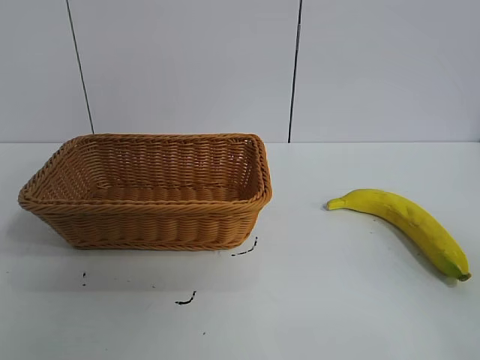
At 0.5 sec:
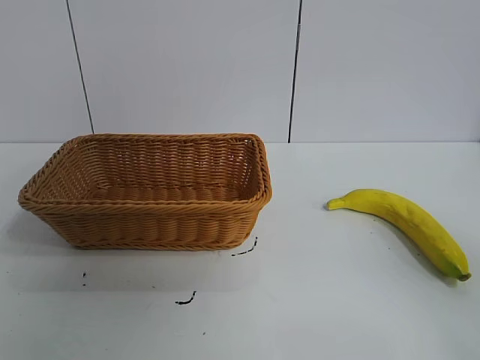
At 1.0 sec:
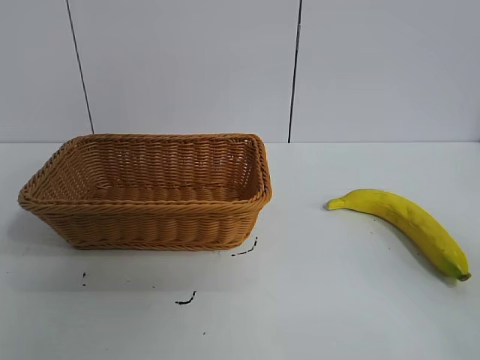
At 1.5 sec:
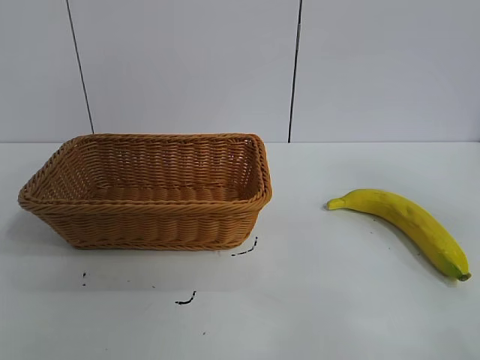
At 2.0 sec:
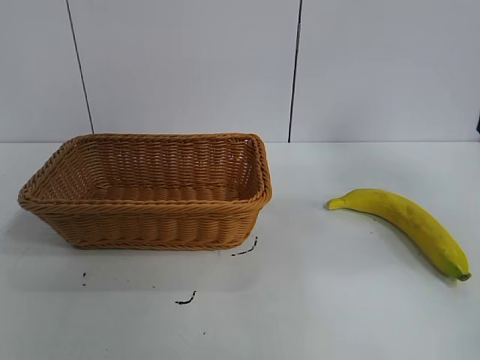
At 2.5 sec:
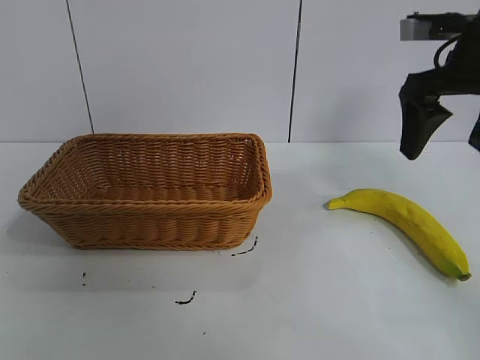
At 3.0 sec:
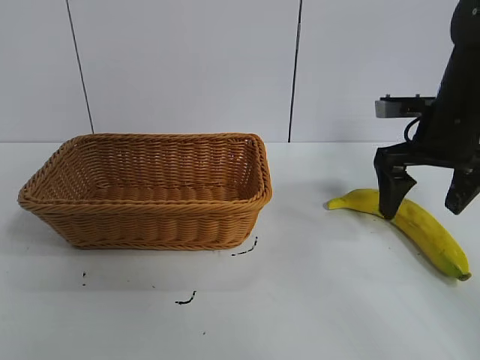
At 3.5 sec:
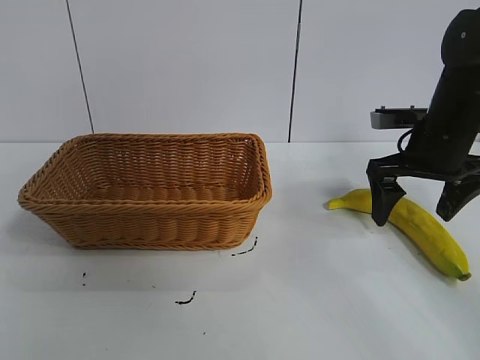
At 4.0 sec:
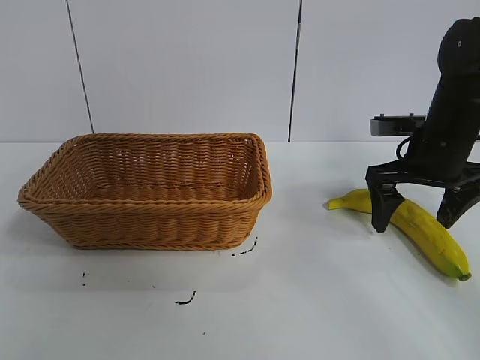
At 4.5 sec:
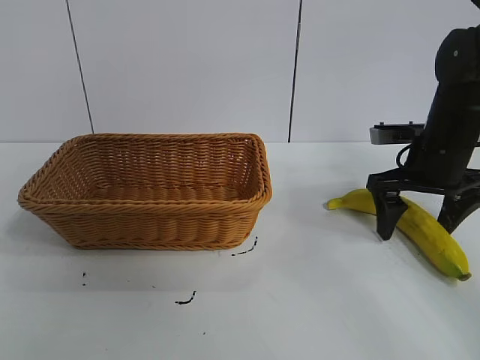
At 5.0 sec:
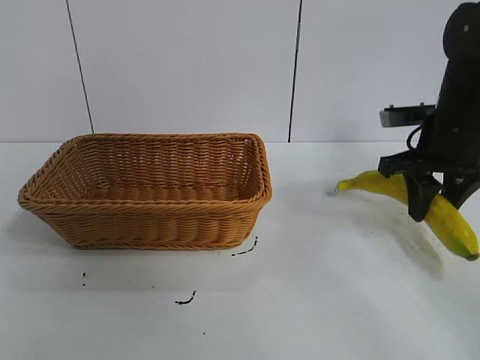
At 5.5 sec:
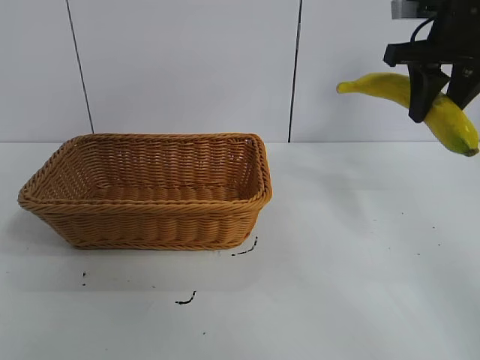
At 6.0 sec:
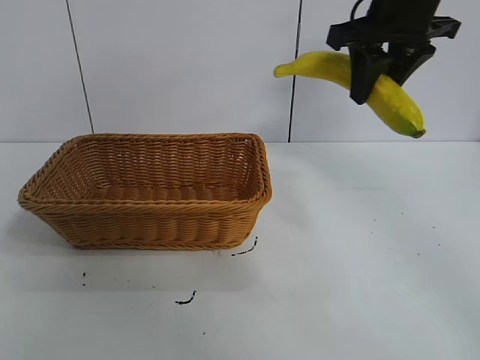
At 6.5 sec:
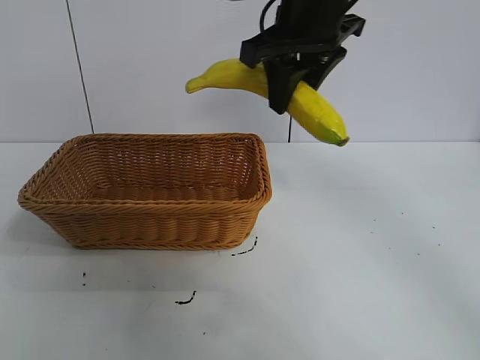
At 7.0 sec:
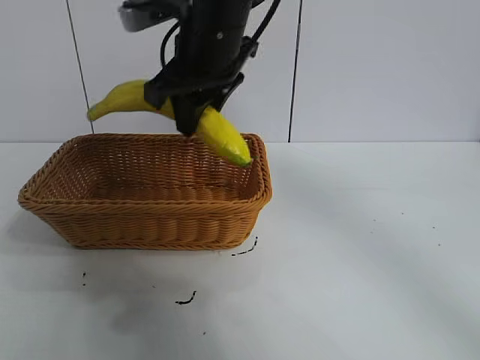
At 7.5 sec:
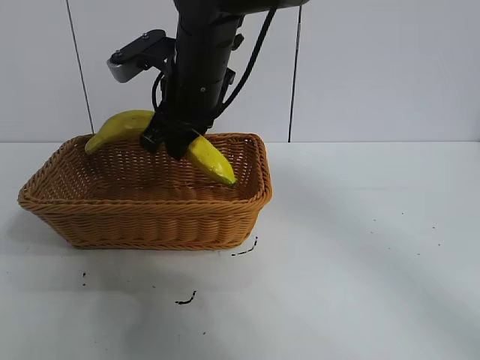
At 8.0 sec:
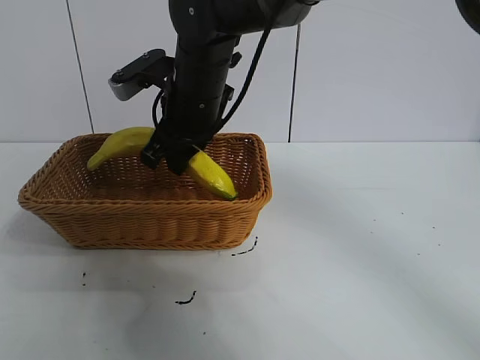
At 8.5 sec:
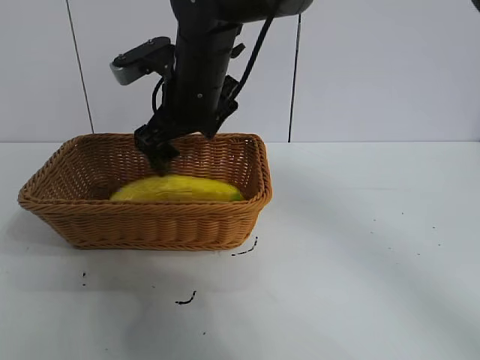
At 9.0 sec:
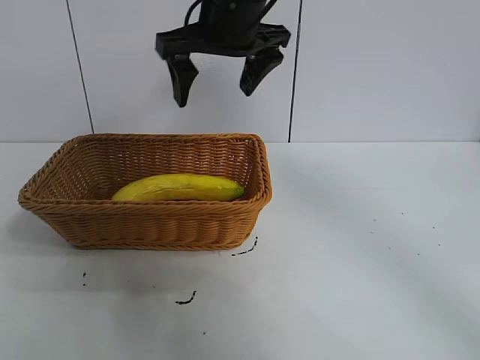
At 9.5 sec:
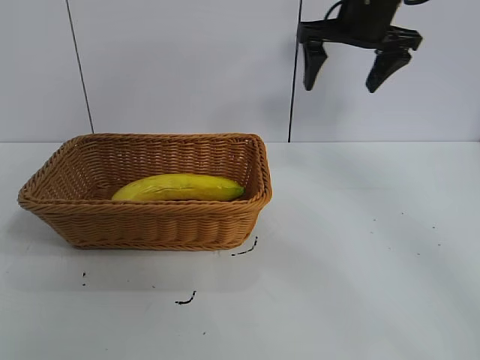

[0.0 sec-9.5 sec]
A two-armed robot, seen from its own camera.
Task of the whole recording: pick up the banana and put it into the basket.
Step, 1.0 sec to 4.5 sec: Grasp the banana with right gripper.
Step, 5.0 sec to 8.5 sec: Place the banana in the basket with right gripper.
